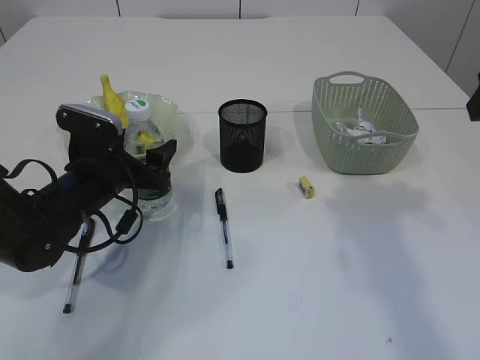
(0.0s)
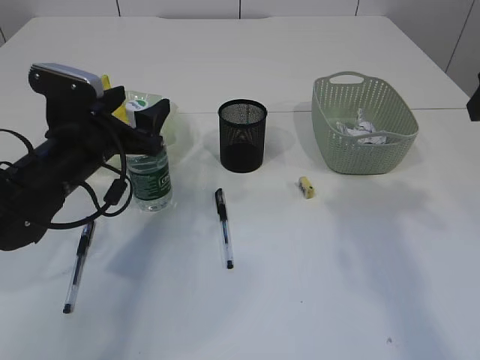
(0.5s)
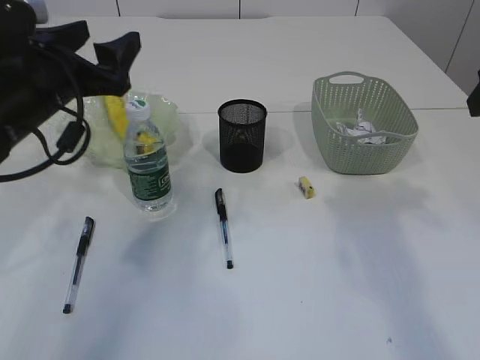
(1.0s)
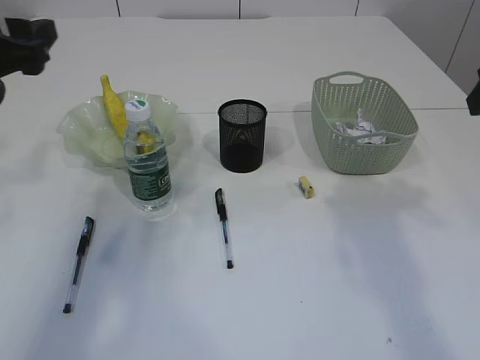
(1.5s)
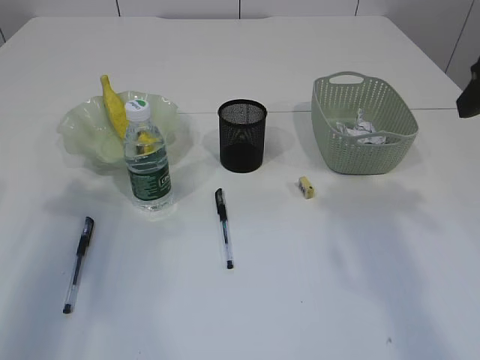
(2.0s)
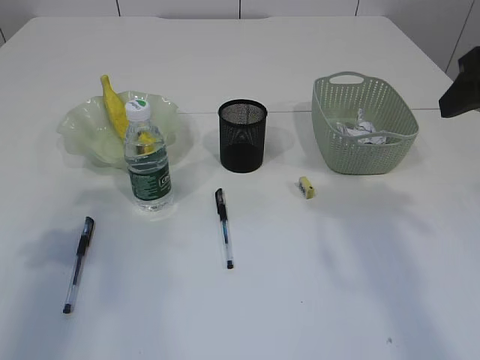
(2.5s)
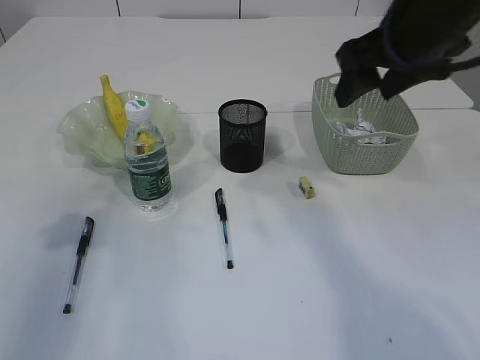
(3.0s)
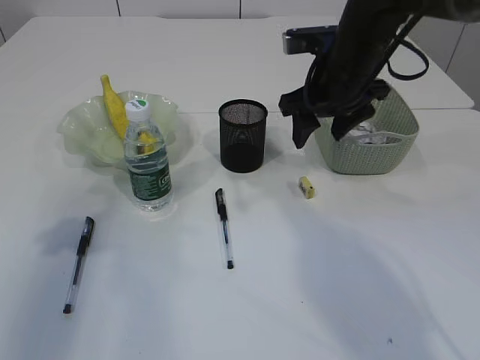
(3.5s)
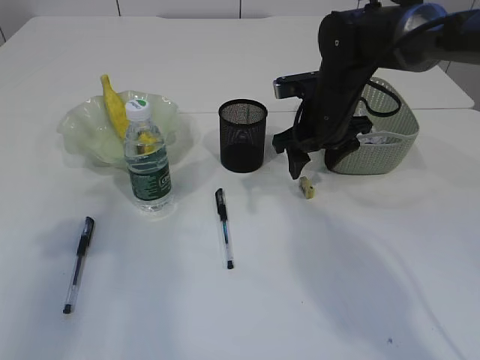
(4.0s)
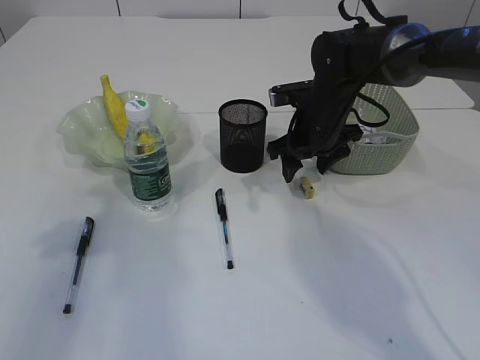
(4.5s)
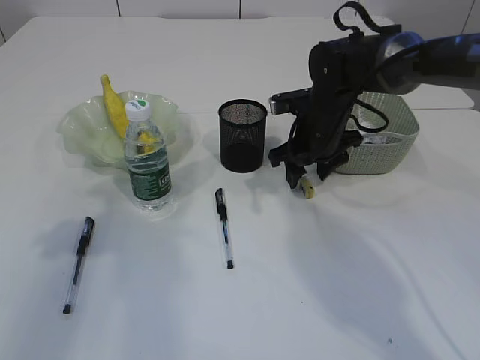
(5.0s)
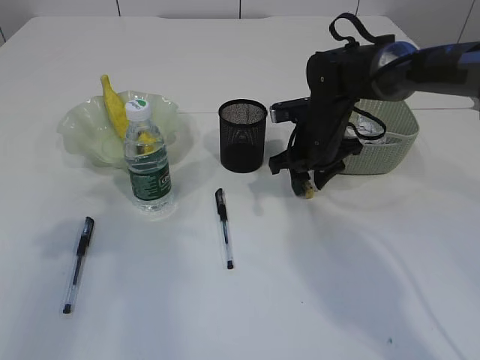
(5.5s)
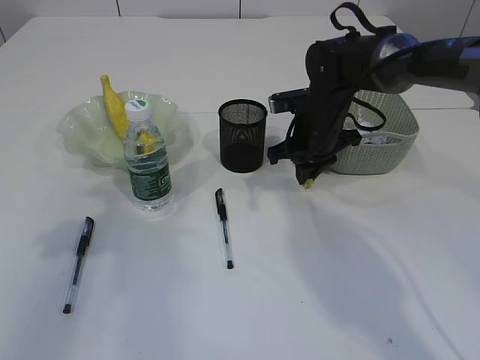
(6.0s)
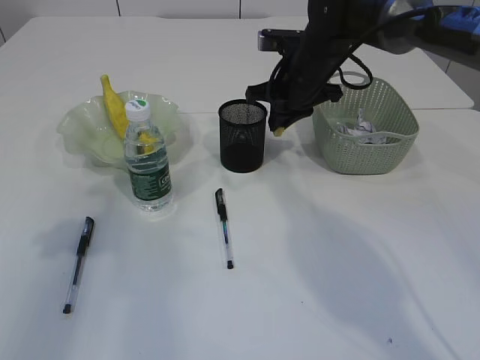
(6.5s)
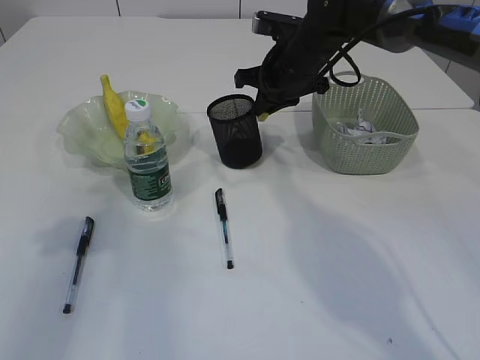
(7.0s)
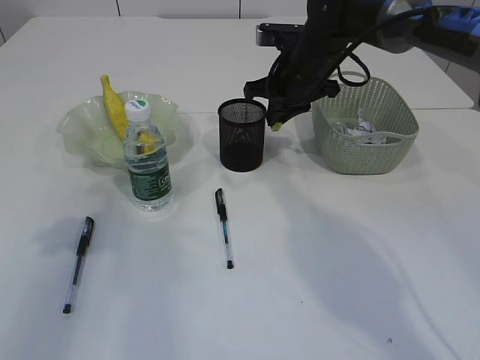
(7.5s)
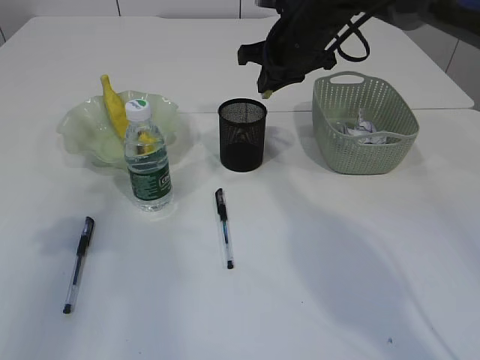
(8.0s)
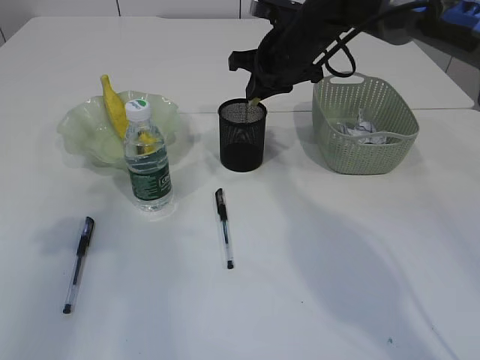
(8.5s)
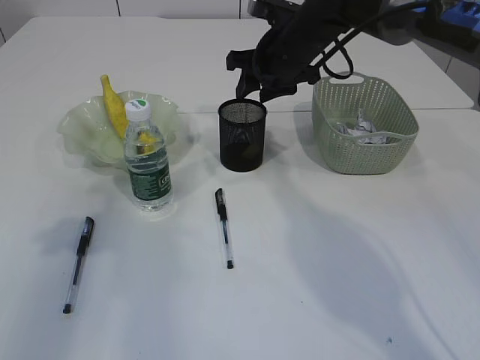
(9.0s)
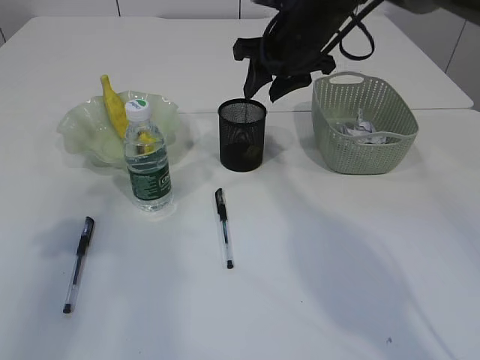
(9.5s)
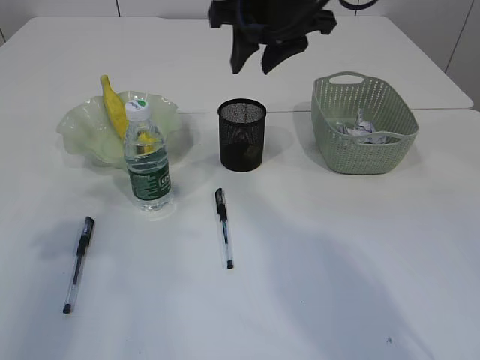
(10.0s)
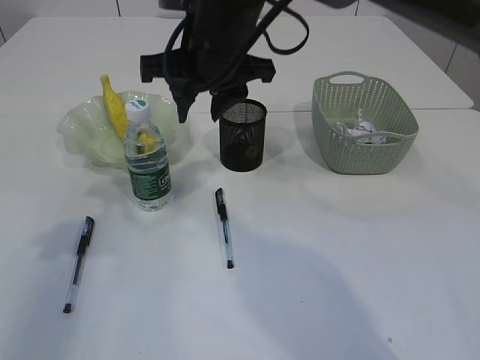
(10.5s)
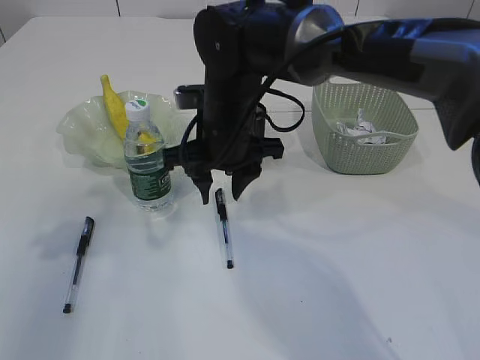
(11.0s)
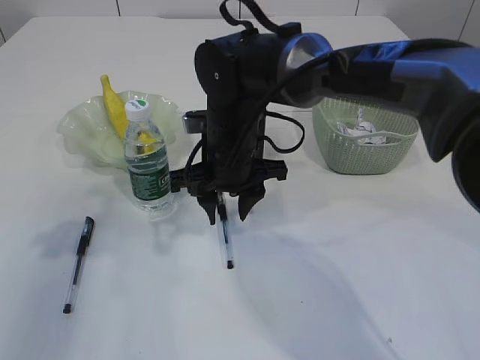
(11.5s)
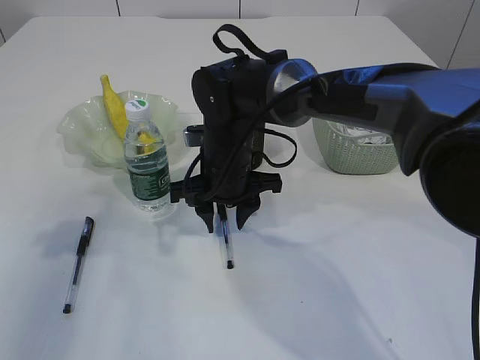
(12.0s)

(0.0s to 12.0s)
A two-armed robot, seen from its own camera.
Step, 1.0s - 6.0s: Pick up the eraser.
Step, 6.5s - 9.5s: Place the eraser into the pen holder.
0.0s - 2.0s: The left gripper shifts roughly 20 cm upward, to the left and backward.
2.0s - 4.0s: The right gripper shifts roughly 25 cm forward, downward and to the left.
4.0s - 6.0s: The right gripper closes.
6.0s - 8.0s: The right gripper moves upward, approximately 10 cm.
8.0s - 10.0s: The right gripper travels upward and backward by about 10 cm, and opens.
10.0s - 12.0s: The right gripper is displaced downward and to the left by some 20 cm.

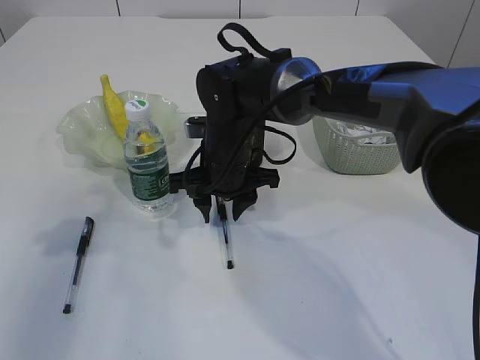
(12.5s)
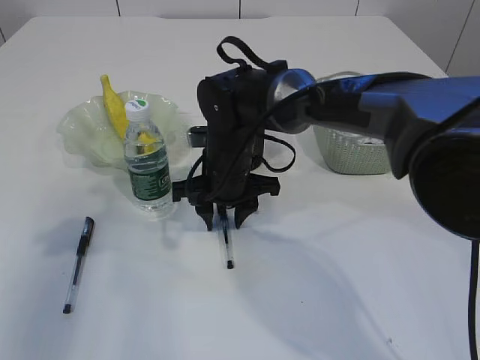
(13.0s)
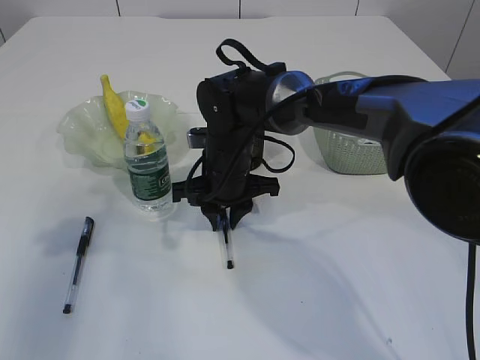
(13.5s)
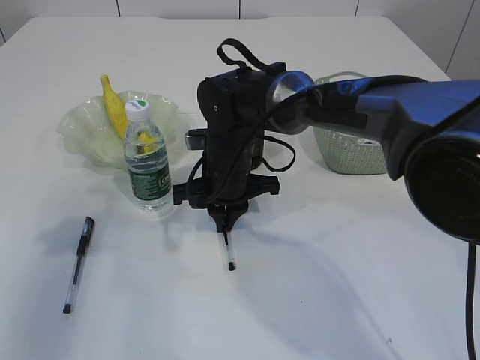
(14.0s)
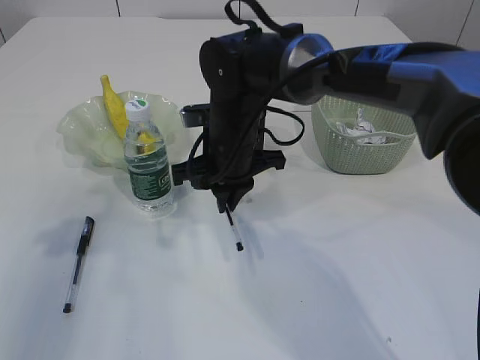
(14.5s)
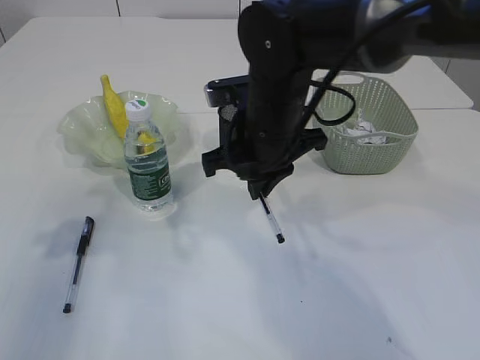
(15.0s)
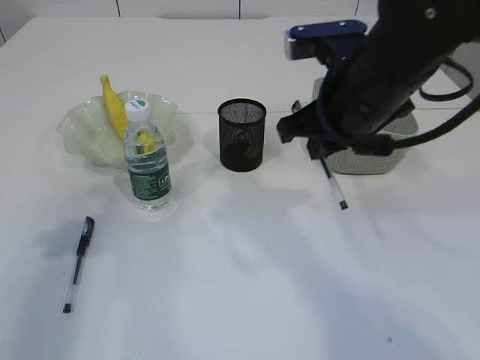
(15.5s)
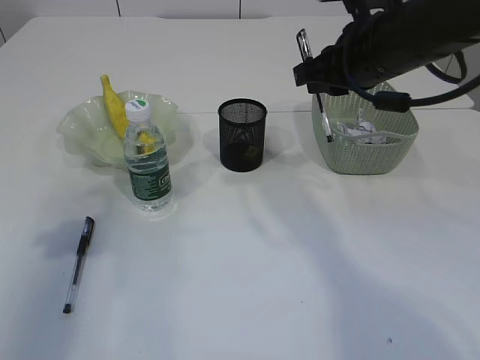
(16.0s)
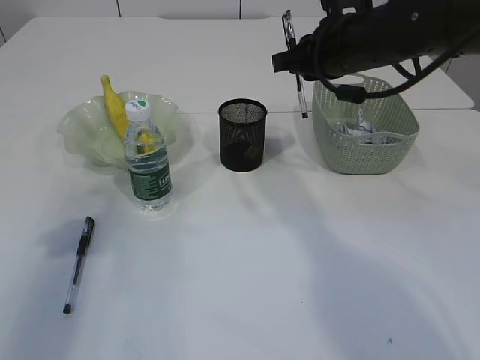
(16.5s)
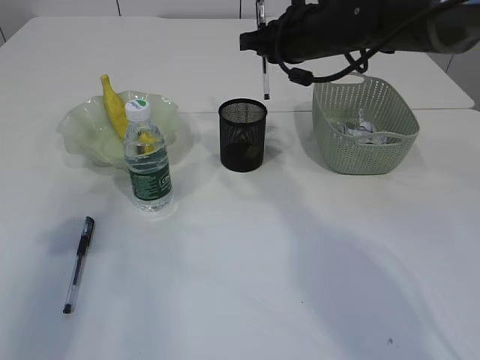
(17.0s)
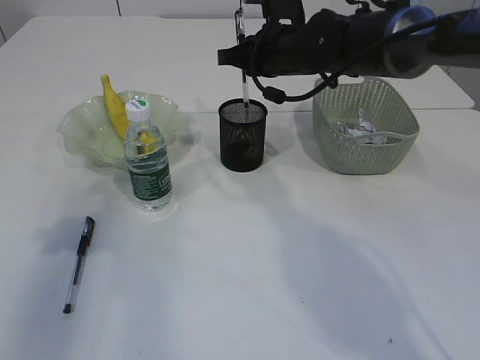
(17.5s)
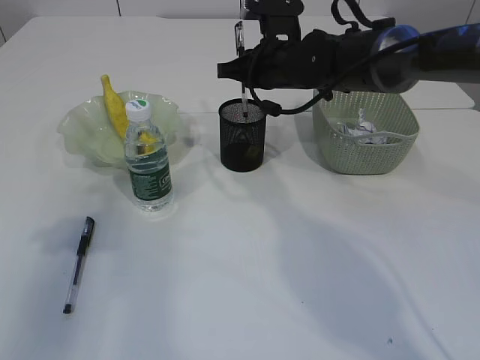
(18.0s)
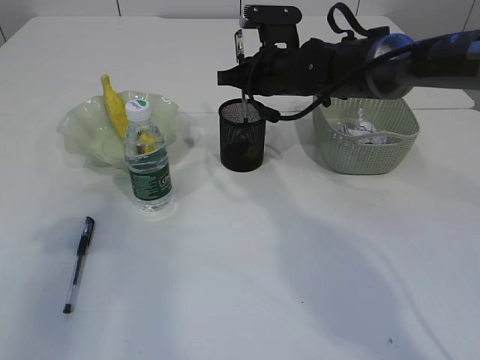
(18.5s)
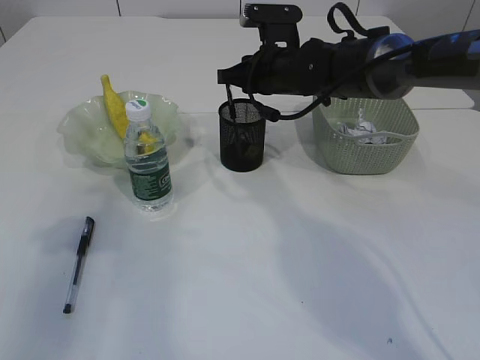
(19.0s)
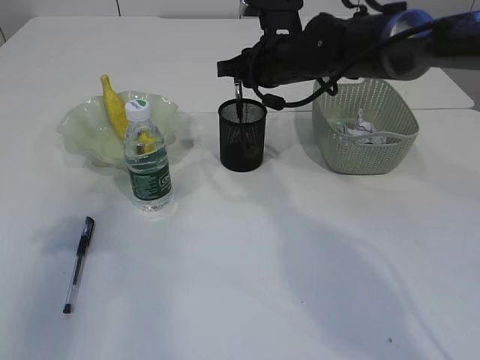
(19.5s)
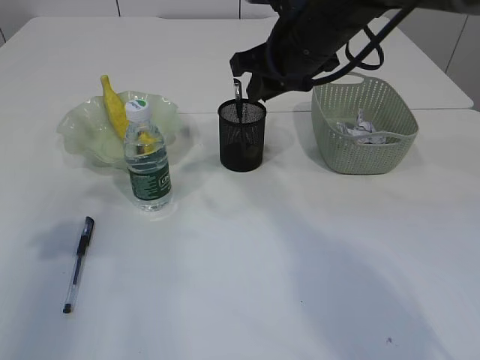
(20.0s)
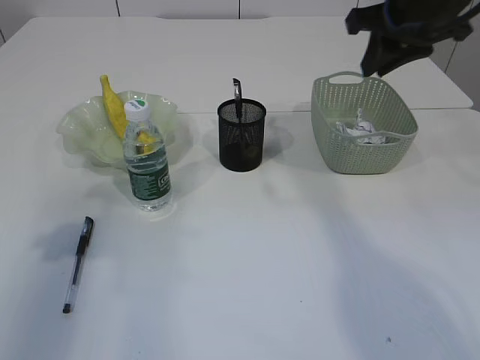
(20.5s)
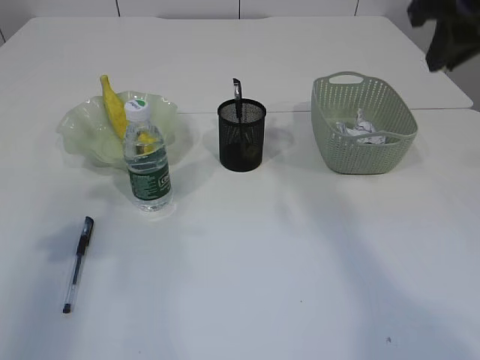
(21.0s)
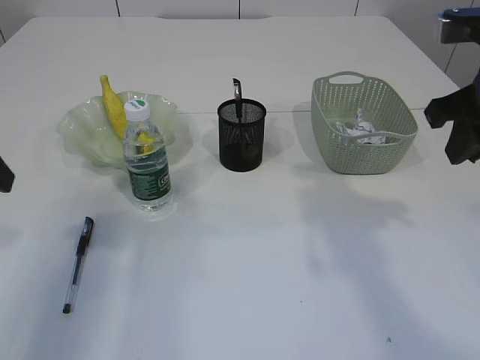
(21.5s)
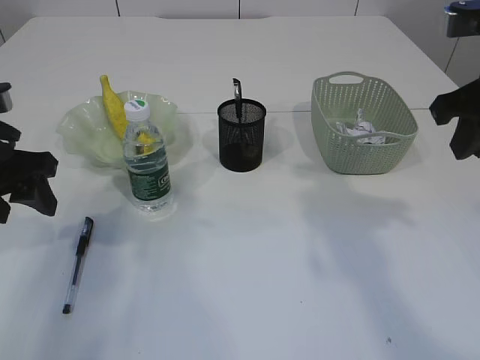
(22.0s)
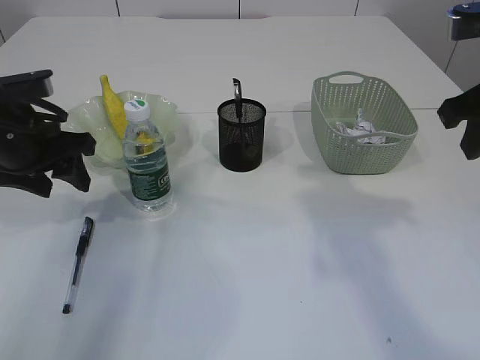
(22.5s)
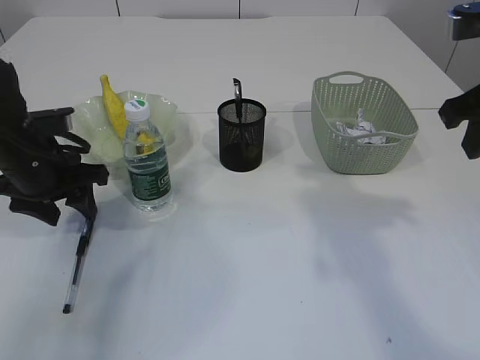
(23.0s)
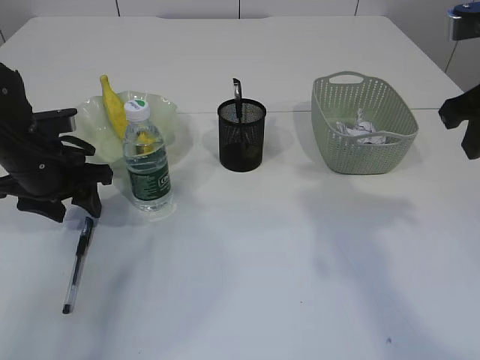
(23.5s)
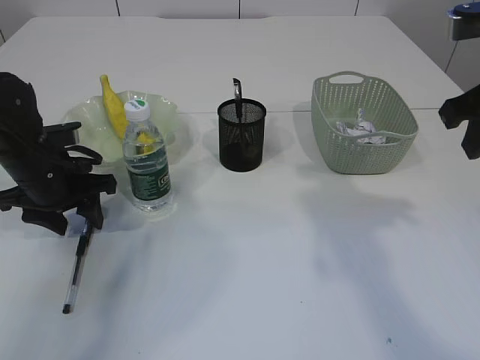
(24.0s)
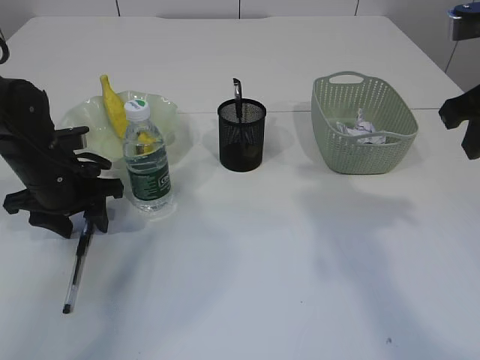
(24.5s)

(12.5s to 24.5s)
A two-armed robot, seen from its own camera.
Step, 12.5s - 14.5s: Pick up the pen with right arm.
Step, 15.0s - 19.5s: Place the pen into the pen holder.
12.5s - 14.5s: The right gripper closes.
14.5s - 16.5s: The right gripper shifts roughly 15 cm to the right and upward.
16.5s - 18.5s: The right gripper travels forward, downward and to the left by approximately 10 cm.
18.5s - 20.5s: The right gripper goes roughly 20 cm upward, to the right and backward.
20.5s - 22.5s: The left gripper moves forward, to the right and downward, about 15 cm. The right gripper goes some 10 cm backward.
22.5s - 24.5s: The left gripper moves downward, approximately 10 cm.

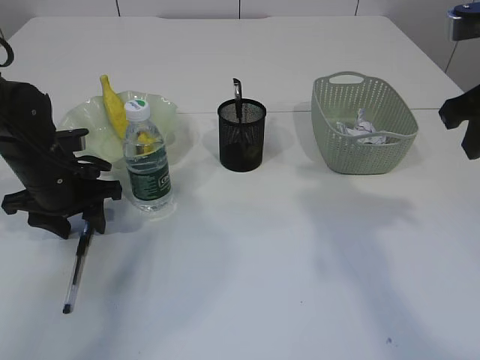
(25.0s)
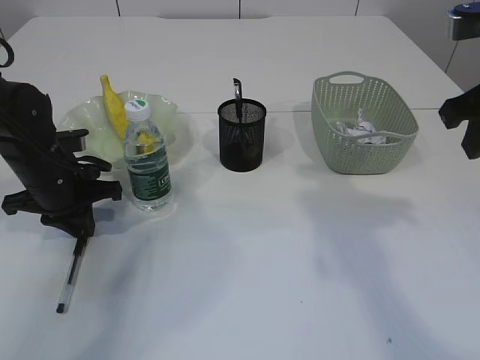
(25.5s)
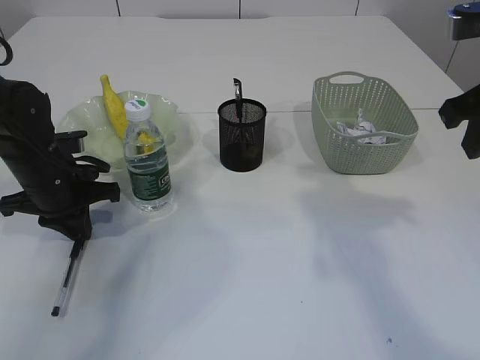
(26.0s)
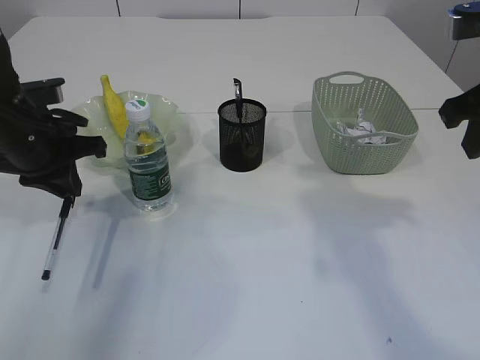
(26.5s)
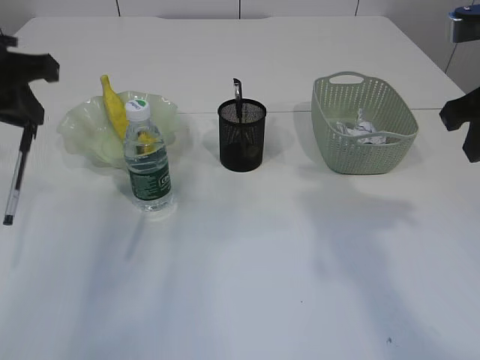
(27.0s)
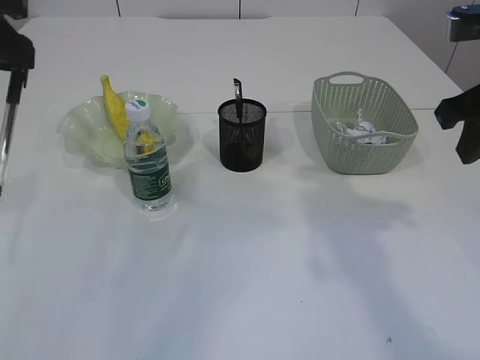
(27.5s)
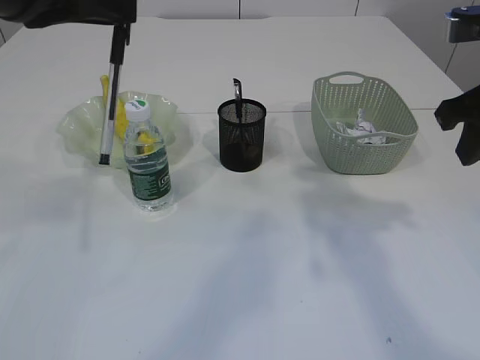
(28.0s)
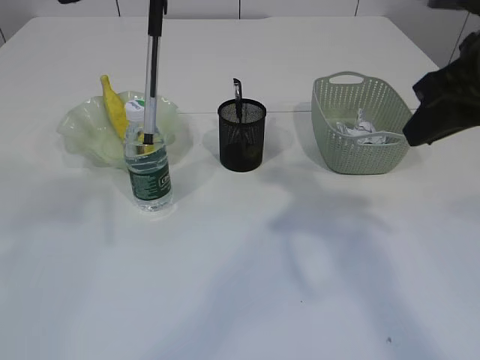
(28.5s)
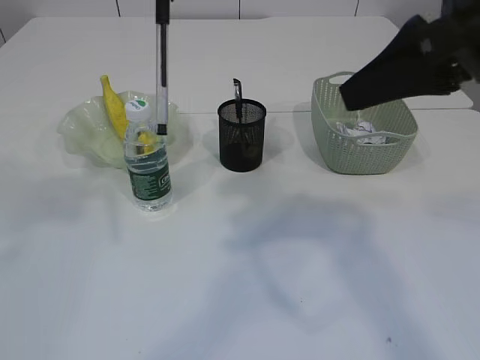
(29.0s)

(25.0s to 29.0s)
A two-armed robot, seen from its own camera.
25.0s - 27.0s: The left gripper shifts approximately 20 cm upward, and closes its fingers.
27.0s - 29.0s: The left gripper shifts approximately 15 cm to the right, upward and backward. Meanwhile the right gripper travels to the left and upward by approximately 10 cm.
